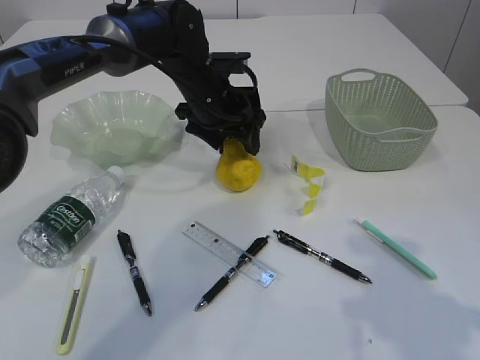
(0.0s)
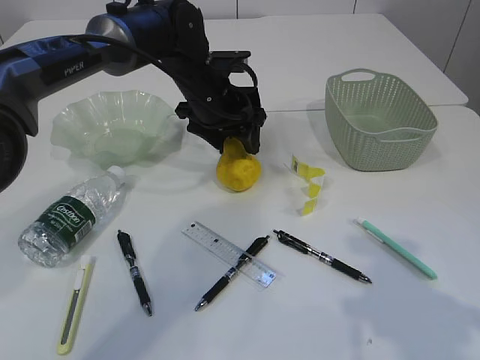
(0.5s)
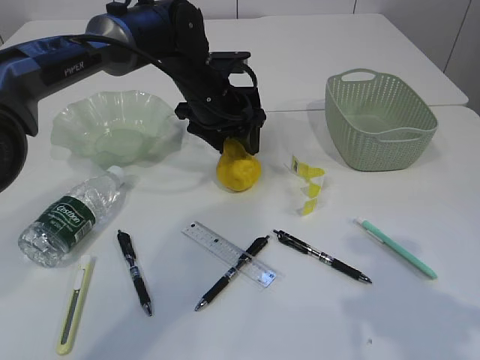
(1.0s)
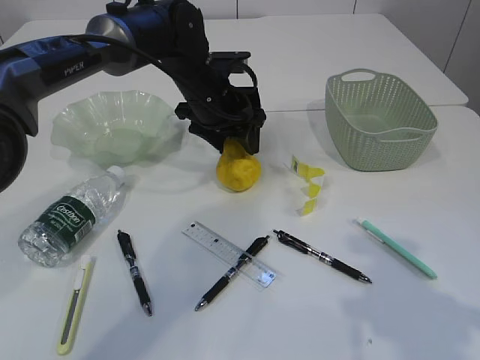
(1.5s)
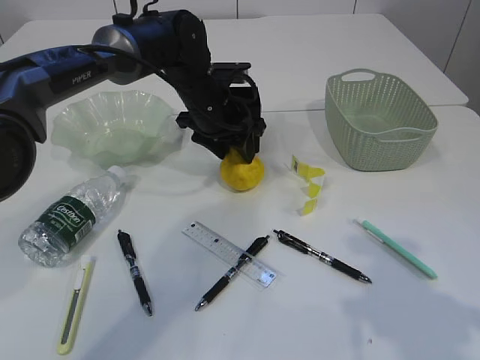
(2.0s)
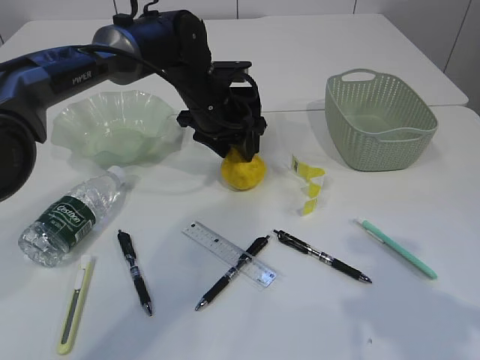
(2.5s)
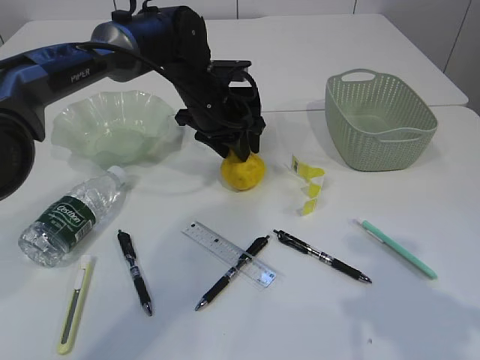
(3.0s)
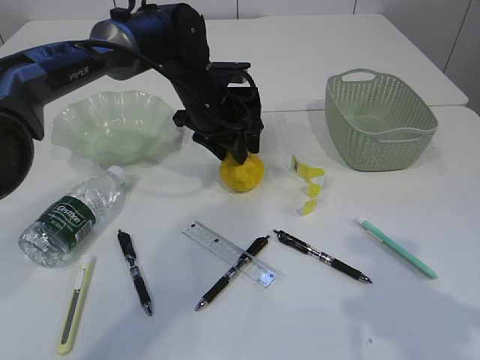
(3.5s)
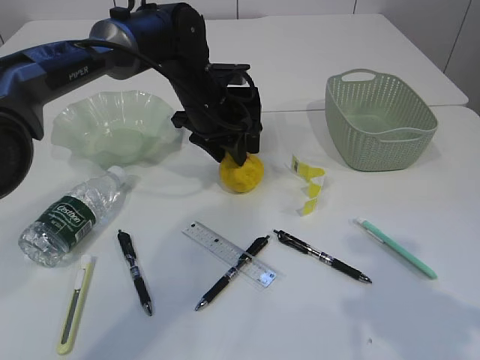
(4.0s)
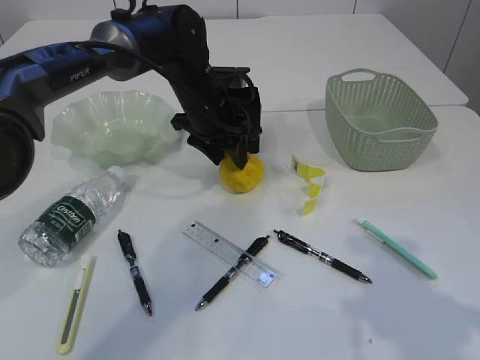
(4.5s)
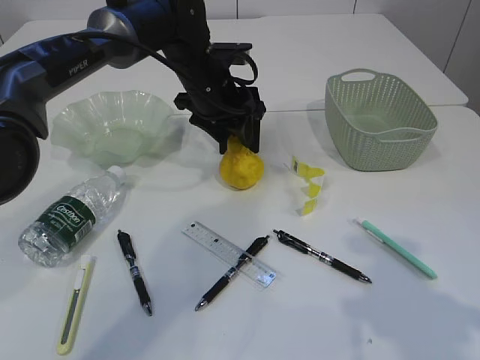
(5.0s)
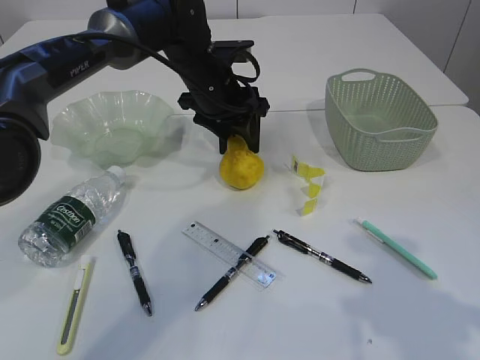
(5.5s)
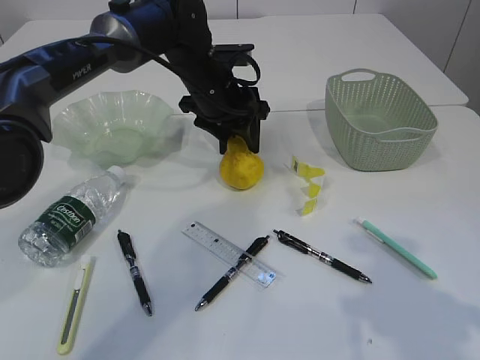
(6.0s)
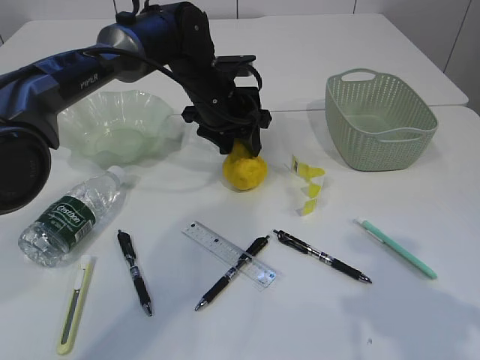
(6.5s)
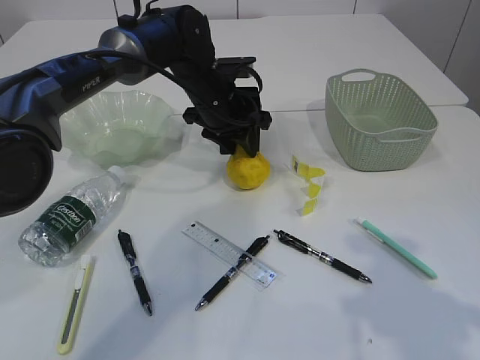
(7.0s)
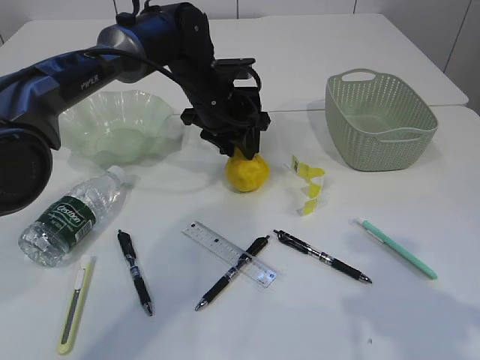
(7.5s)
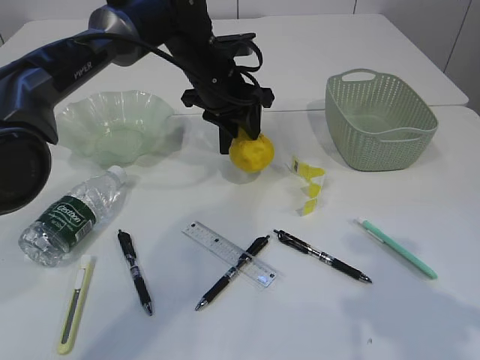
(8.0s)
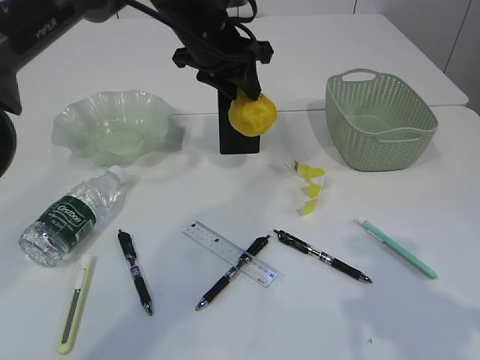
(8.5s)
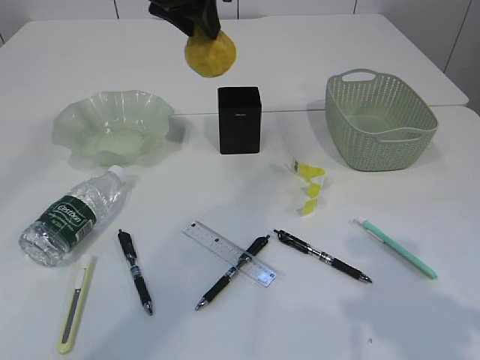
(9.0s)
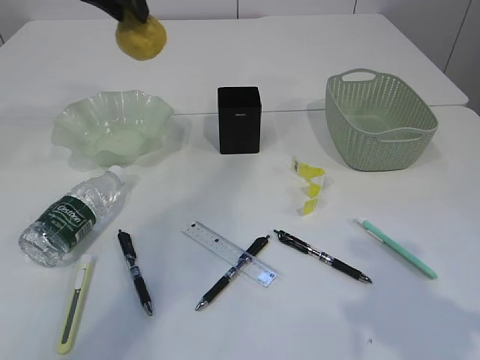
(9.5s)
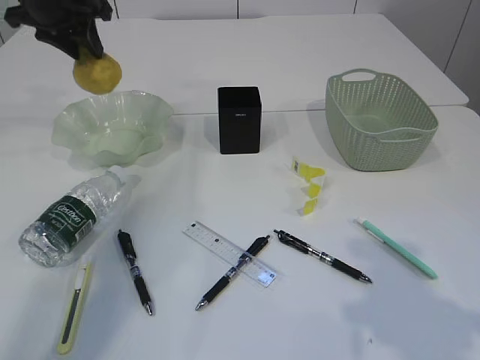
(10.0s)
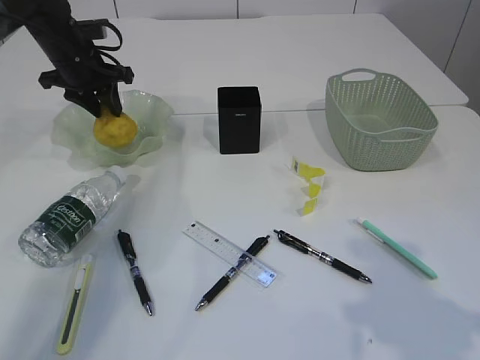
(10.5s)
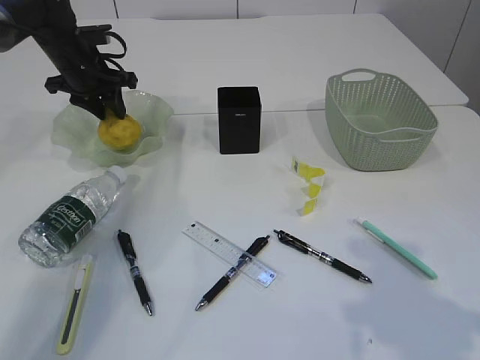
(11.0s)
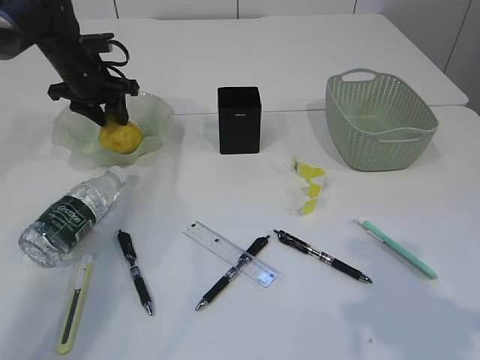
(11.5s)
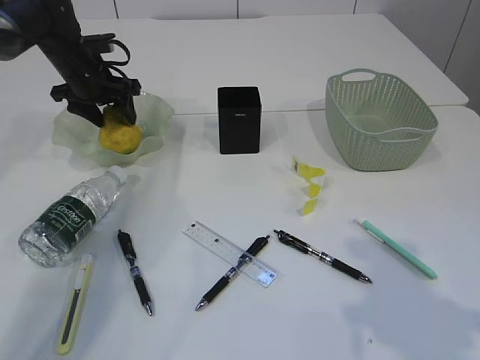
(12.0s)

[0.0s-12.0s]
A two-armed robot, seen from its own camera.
0.0s to 2.0s: The left gripper closes its fingers.
2.0s to 4.0s: Both grippers stay put.
4.0s to 6.0s: The grippers make only small movements.
6.0s to 8.0s: The left gripper closes.
8.0s to 10.0s: The left gripper moves to the left and upward, about 25 cm.
10.0s to 12.0s: The left gripper goes some 10 cm downward, and opens up.

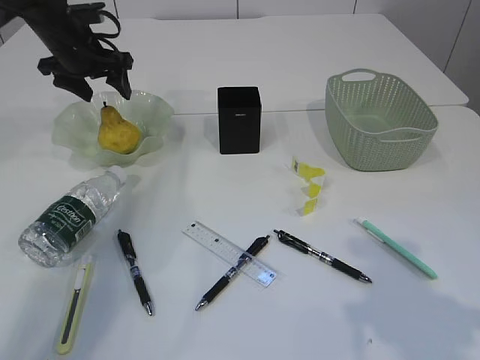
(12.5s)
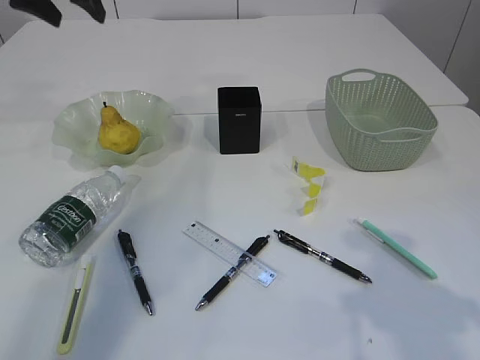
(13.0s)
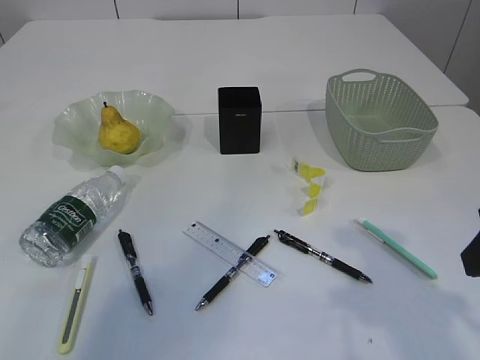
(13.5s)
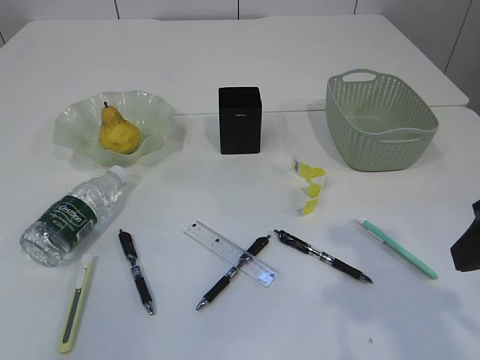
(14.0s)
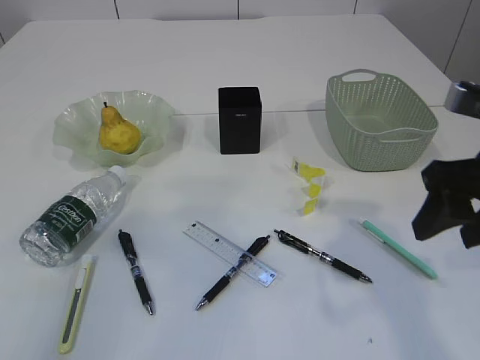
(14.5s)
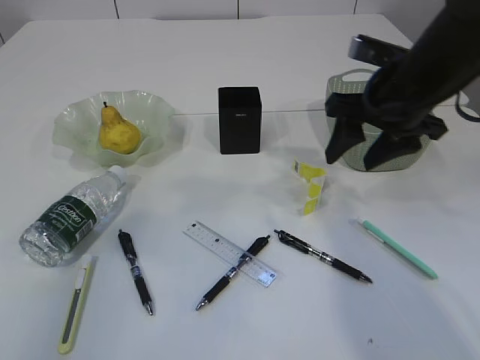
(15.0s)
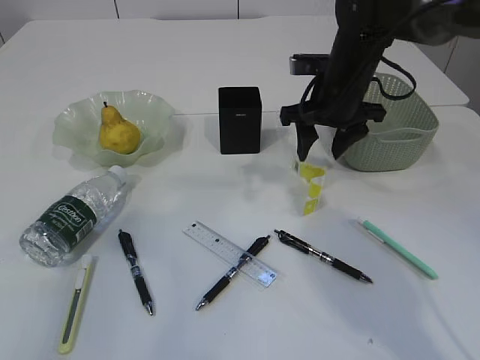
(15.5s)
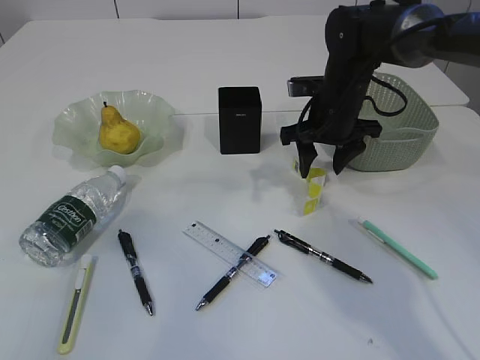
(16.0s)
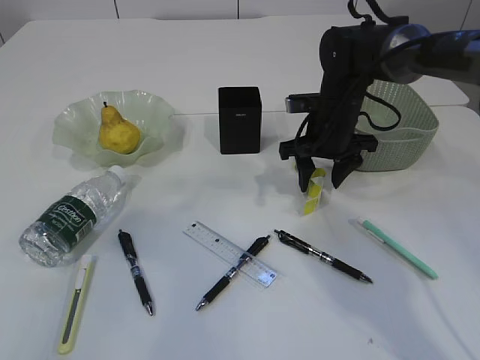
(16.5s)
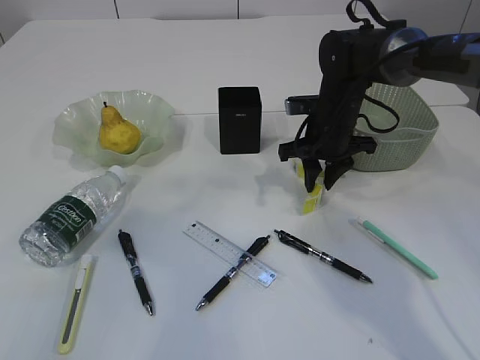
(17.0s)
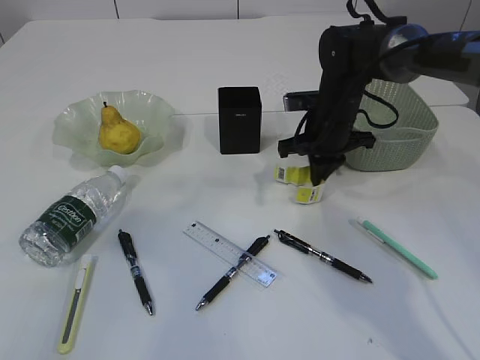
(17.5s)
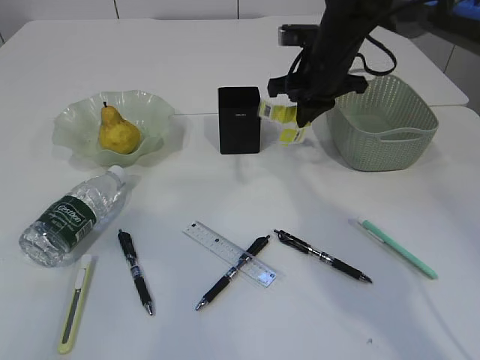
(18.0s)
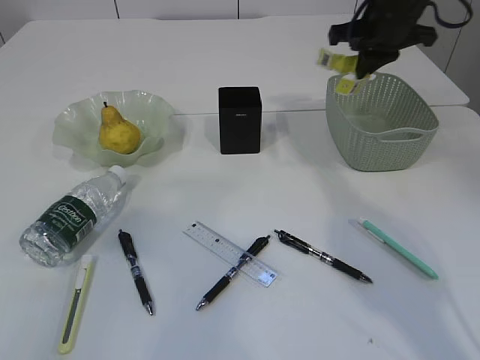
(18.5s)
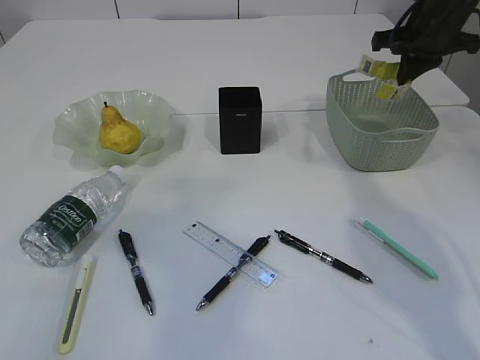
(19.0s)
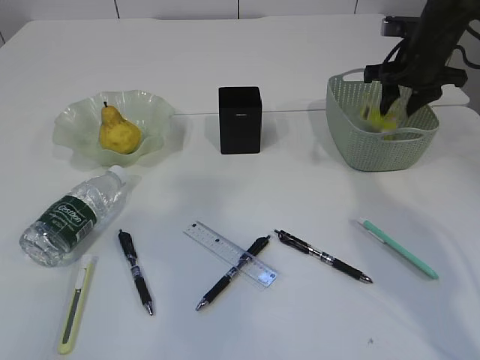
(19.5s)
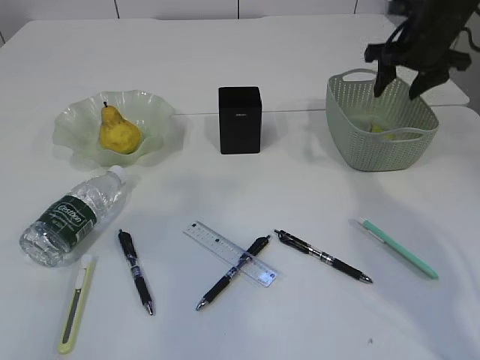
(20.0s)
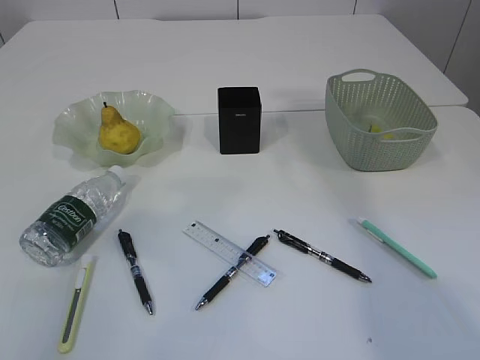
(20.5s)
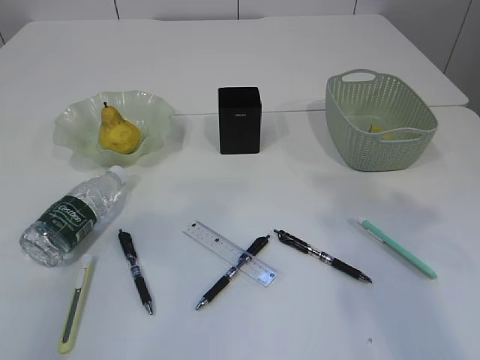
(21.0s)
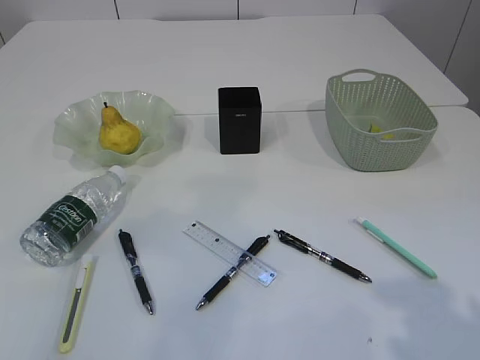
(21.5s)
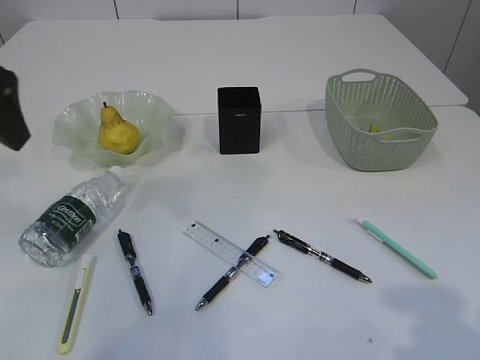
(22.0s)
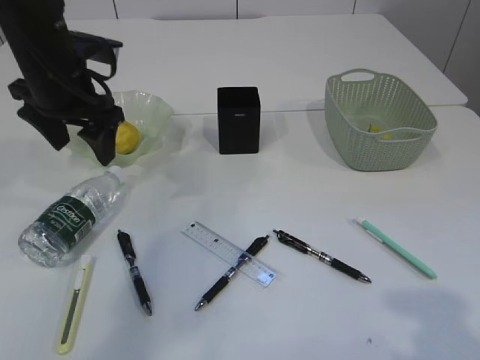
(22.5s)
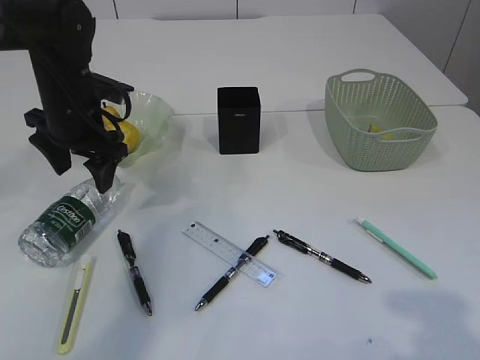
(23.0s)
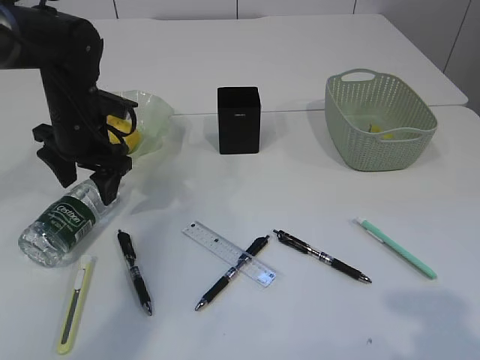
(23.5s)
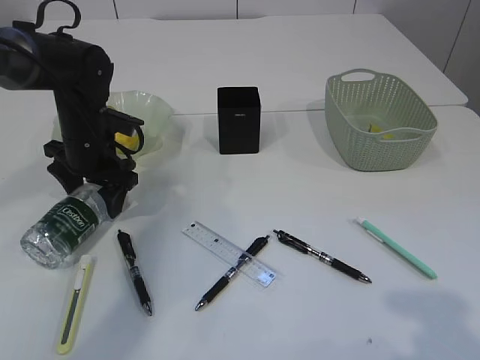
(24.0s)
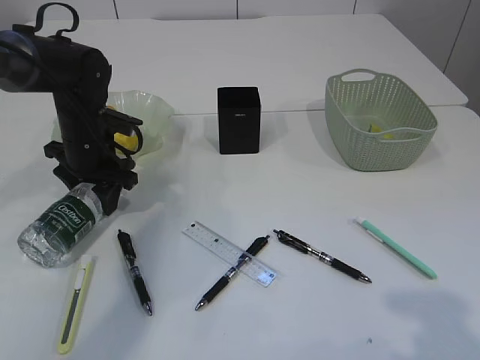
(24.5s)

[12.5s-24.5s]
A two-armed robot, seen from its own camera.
Step, 13.0s to 18.0s: Pick up the plastic.
Step, 18.5s to 20.0s: Place the plastic in the basket.
12.5s to 14.5s: The left gripper travels backward and upward by roughly 40 cm, while the right gripper travels forward by approximately 5 cm.
14.5s to 16.5s: The right gripper moves forward and downward, approximately 25 cm.
16.5s to 18.5s: The right gripper heads upward and to the right, covering about 15 cm, and closes its fingers.
18.5s to 20.5s: The right gripper is displaced upward and backward by roughly 20 cm, and opens up.
20.5s to 22.5s: The left gripper shifts some 30 cm forward, downward and to the right; the right gripper heads backward and downward, covering approximately 35 cm.
22.5s to 24.5s: The left gripper moves downward, approximately 10 cm.

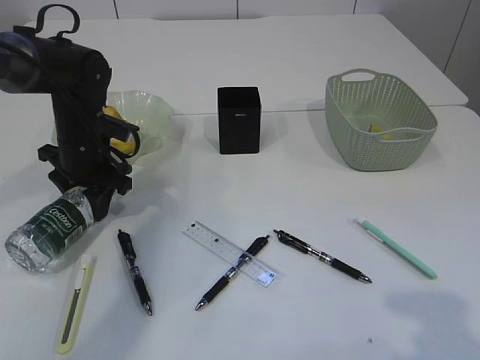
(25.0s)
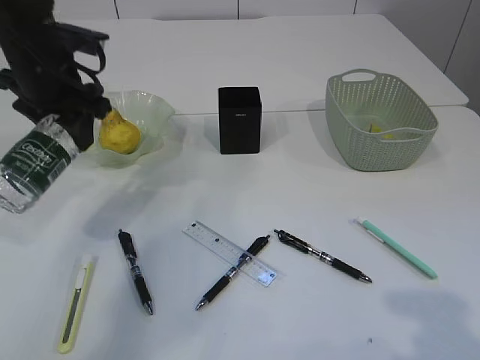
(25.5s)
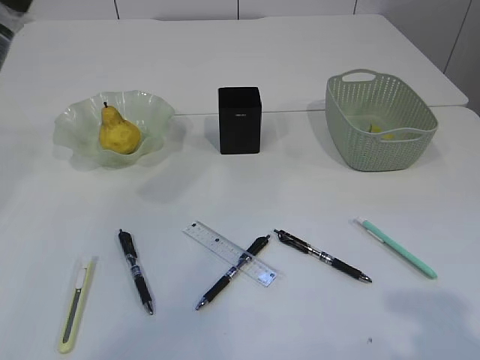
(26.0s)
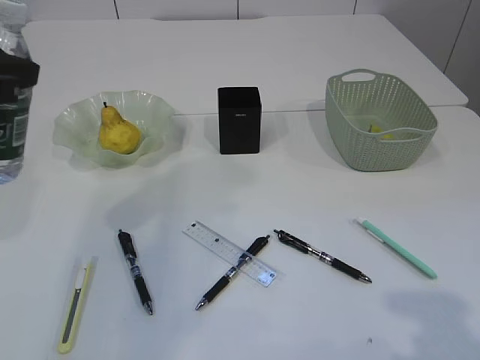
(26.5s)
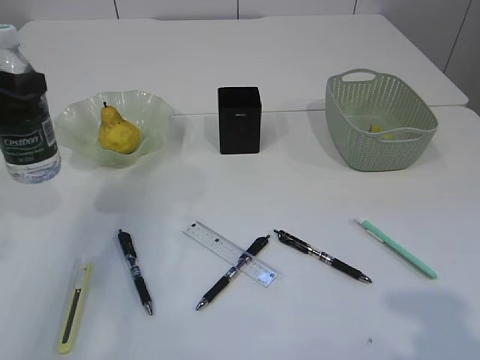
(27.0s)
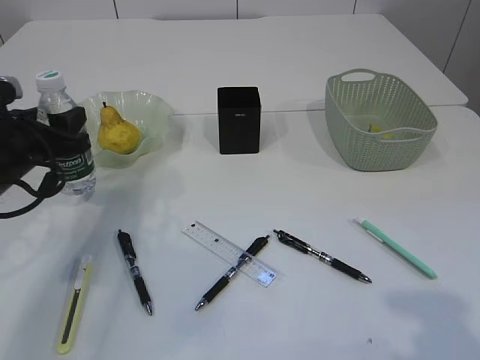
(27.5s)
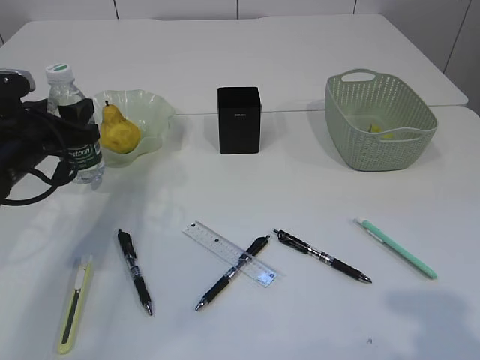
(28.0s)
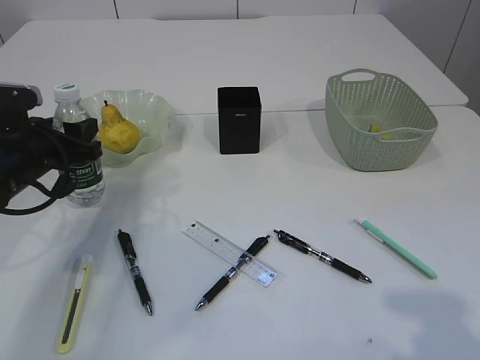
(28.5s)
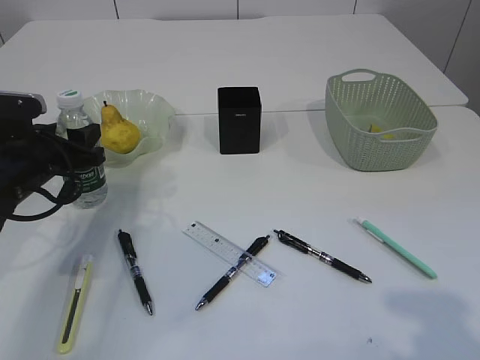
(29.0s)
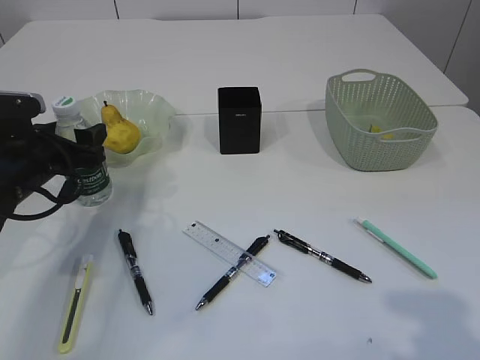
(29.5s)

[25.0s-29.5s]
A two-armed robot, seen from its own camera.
25.0s to 27.0s: The left gripper is displaced backward, upward and to the left by roughly 20 cm.
27.0s to 29.5s: The left gripper shifts about 15 cm downward and forward, and opens.
